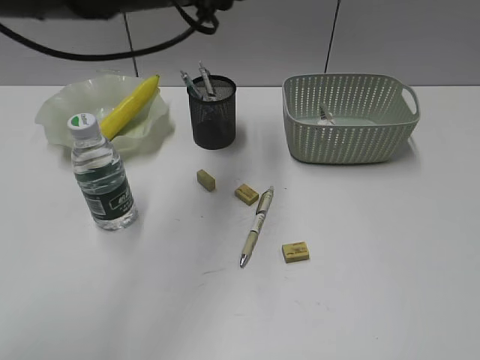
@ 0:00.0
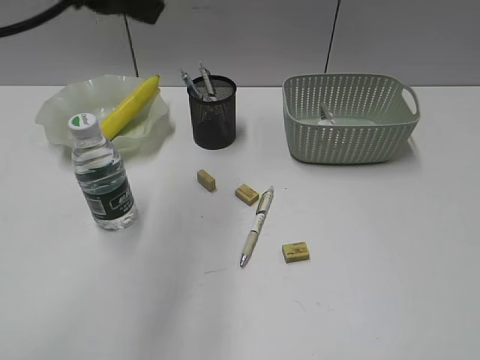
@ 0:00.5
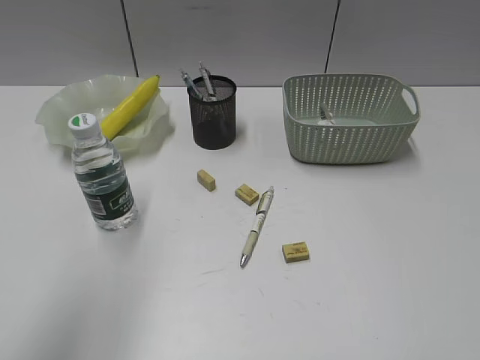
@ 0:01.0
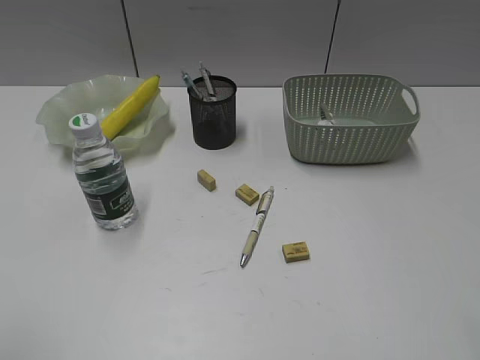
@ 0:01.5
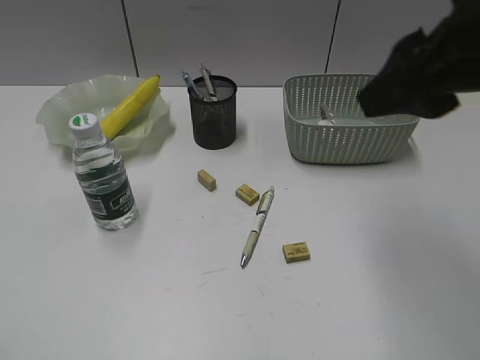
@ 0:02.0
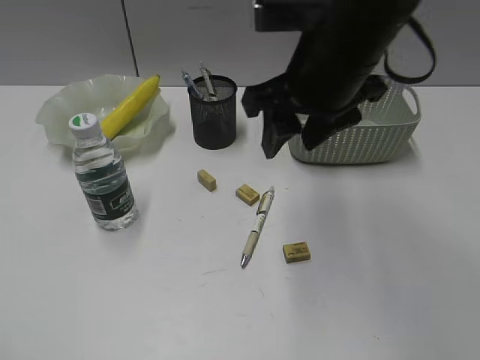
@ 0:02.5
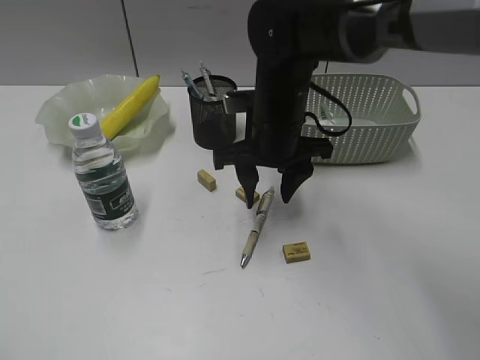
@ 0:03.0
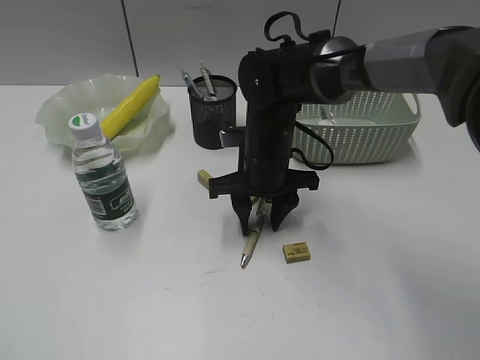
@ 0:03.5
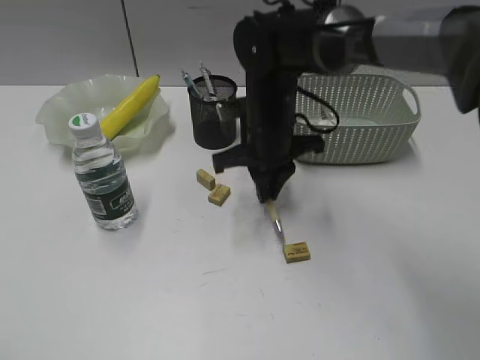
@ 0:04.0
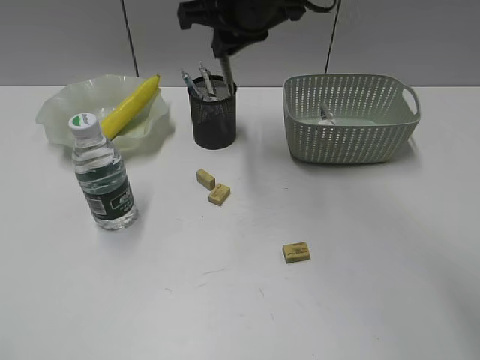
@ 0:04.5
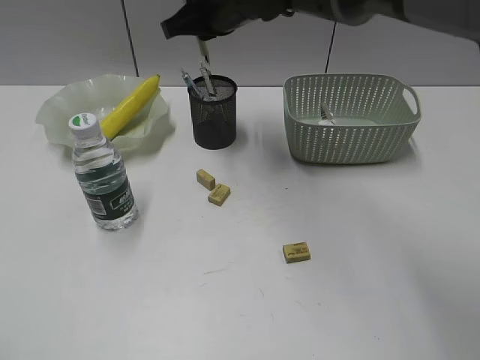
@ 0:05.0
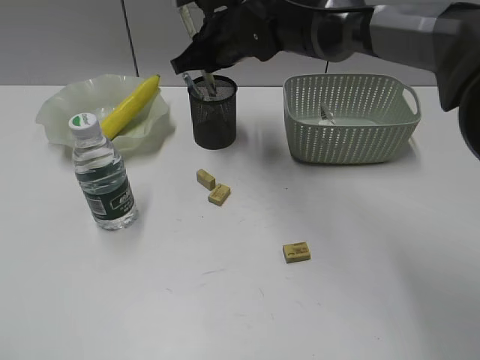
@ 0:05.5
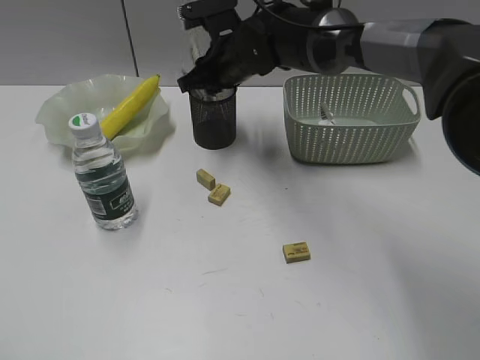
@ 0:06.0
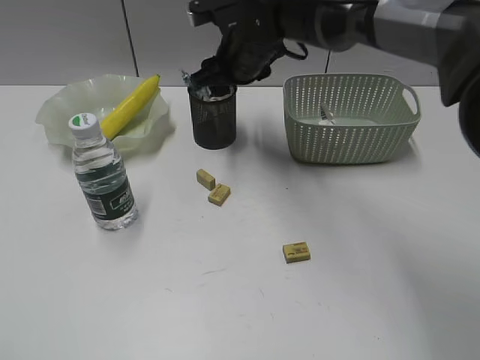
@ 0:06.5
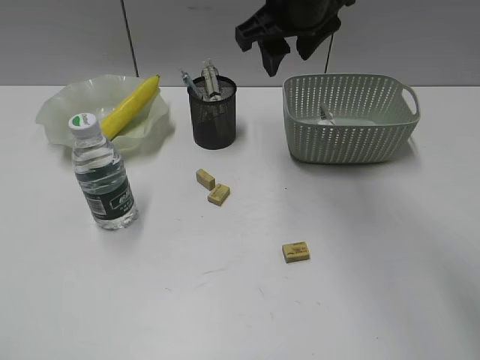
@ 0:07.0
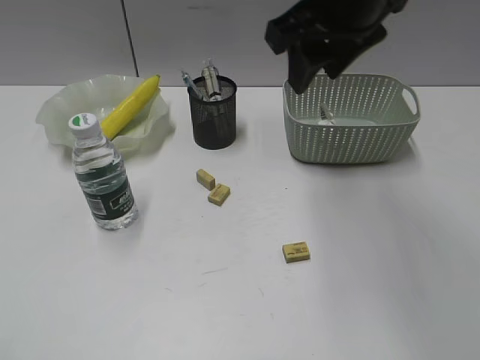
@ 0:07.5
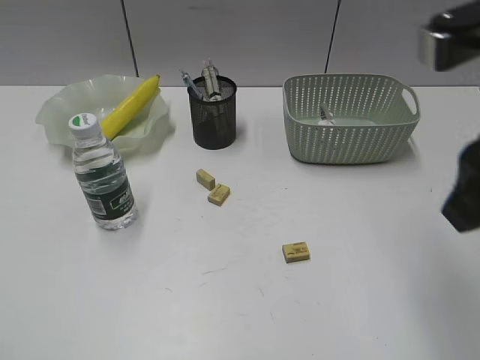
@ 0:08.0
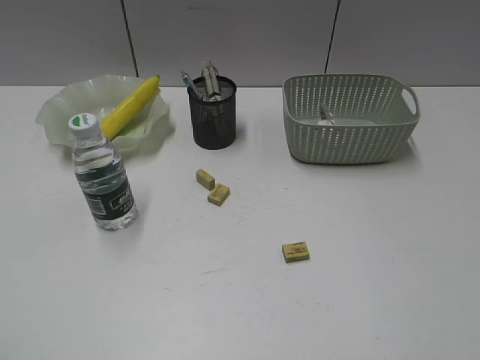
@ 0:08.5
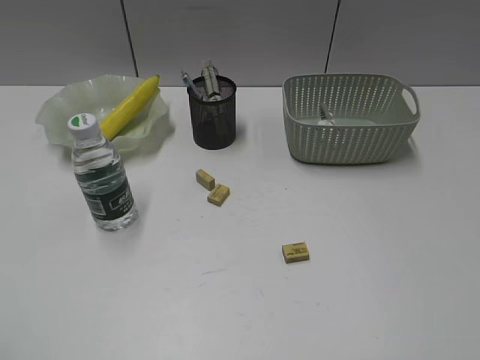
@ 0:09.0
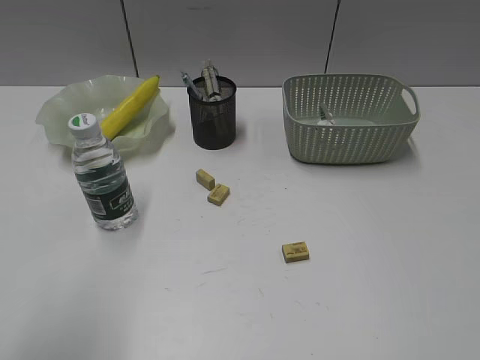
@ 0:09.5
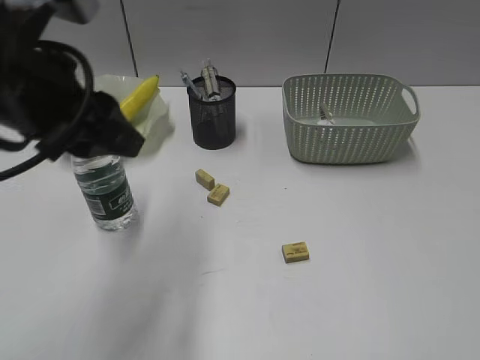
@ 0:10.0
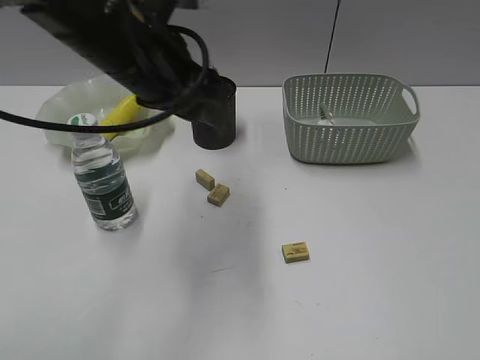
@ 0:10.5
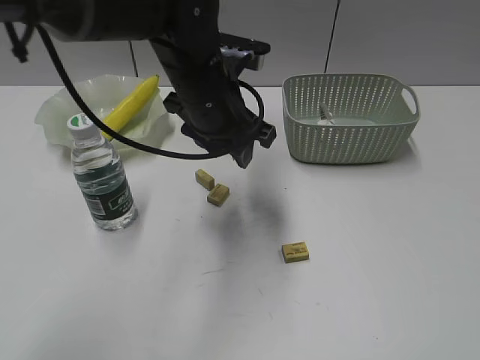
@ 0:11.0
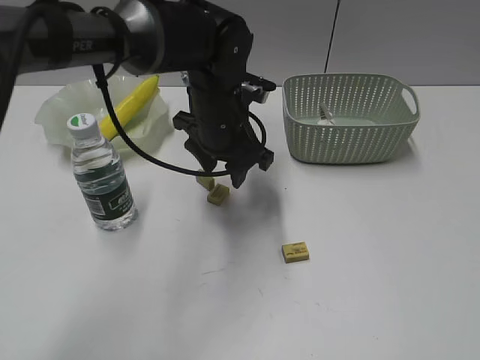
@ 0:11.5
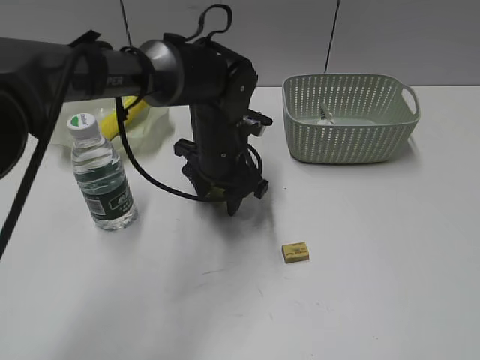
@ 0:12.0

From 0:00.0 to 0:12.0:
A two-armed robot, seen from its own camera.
Step, from 0:00.0 to 0:03.5: Grasp the yellow pen with right gripper.
Step, from 0:04.0 to 0:06.5: Place the yellow pen in pen holder with right gripper.
From 0:00.0 to 0:02.0: The left gripper heads backward and to the left, covering about 50 cm. Meanwhile the right gripper goes approximately 25 cm forward and to the left.
From 0:02.0 to 0:04.0: The right gripper shifts some 30 cm downward, forward and to the left, and closes its fingers.
From 0:04.0 to 0:06.0: The right gripper is displaced forward by approximately 10 cm, and moves some 15 cm upward and comes back.
From 0:06.0 to 0:08.0: The right gripper is displaced backward, to the right and upward by roughly 35 cm, and opens.
From 0:08.0 to 0:10.0: The left gripper is displaced forward and to the right by some 30 cm. The right gripper heads backward and to the right, covering about 20 cm.
From 0:10.0 to 0:12.0: The left gripper travels downward, to the right and forward by approximately 25 cm.

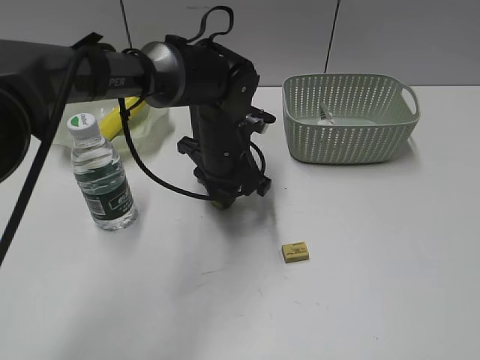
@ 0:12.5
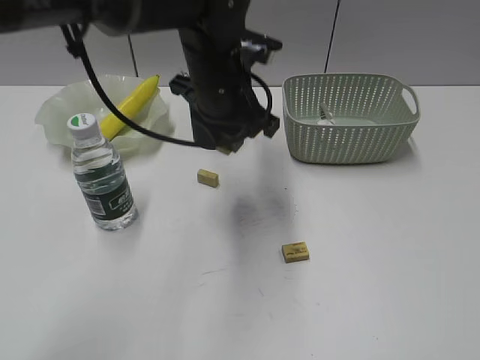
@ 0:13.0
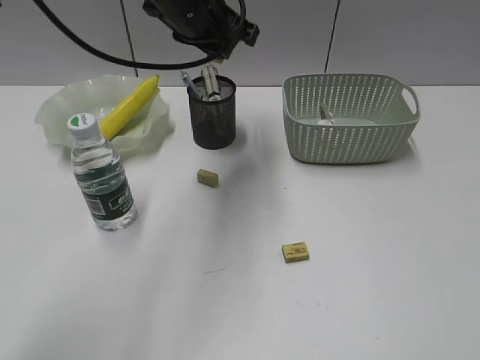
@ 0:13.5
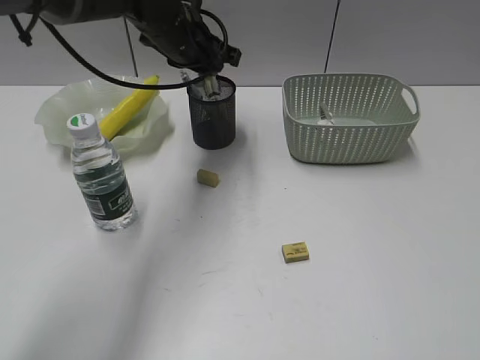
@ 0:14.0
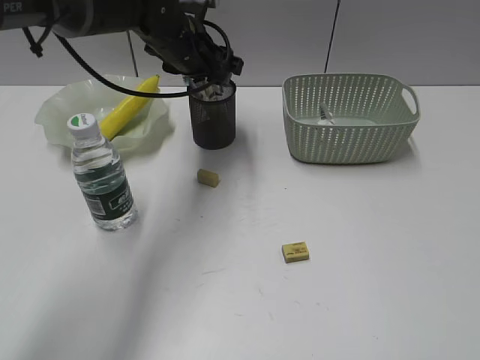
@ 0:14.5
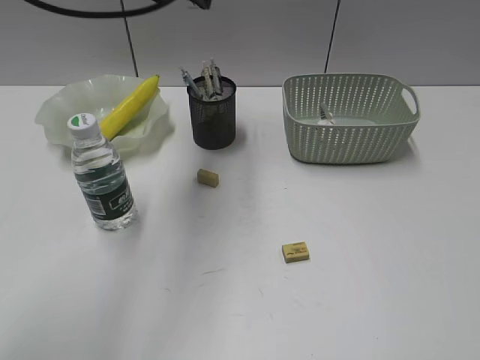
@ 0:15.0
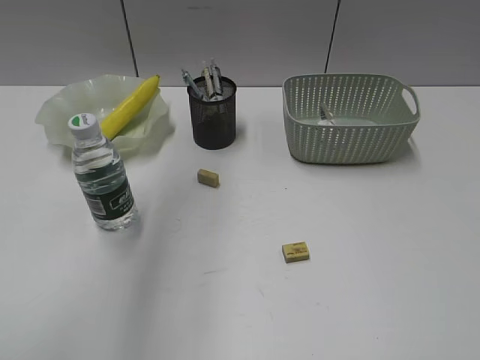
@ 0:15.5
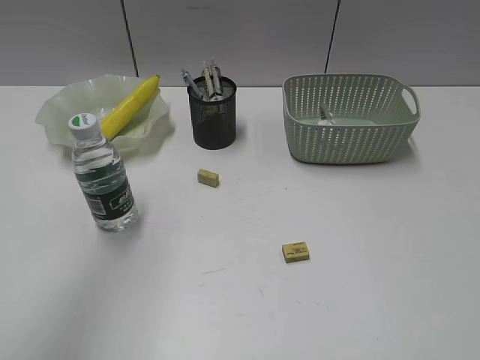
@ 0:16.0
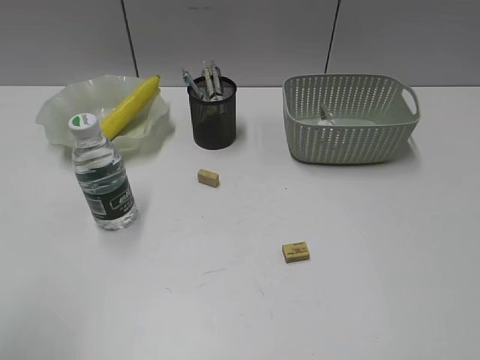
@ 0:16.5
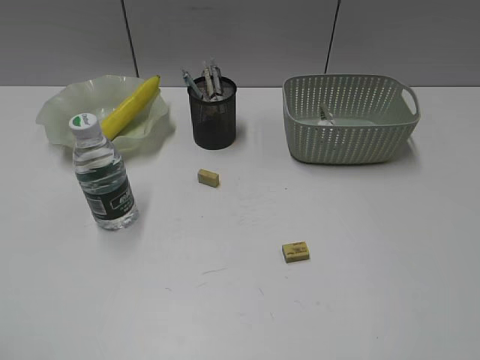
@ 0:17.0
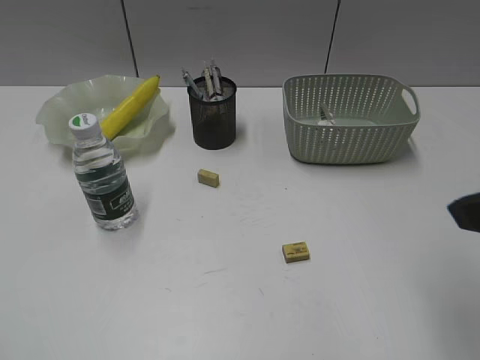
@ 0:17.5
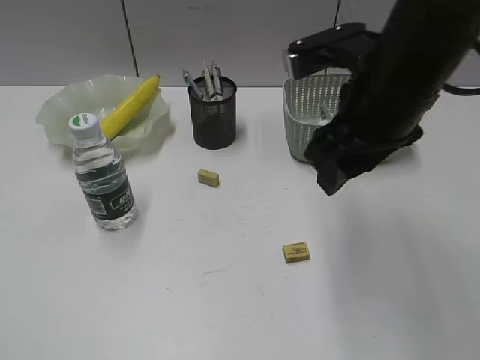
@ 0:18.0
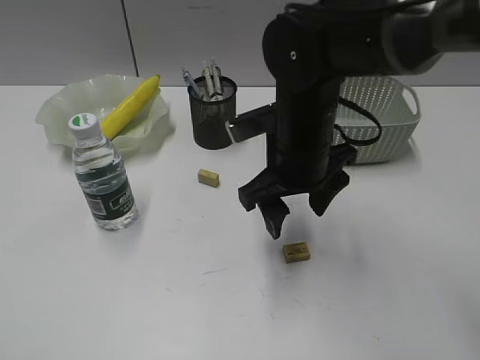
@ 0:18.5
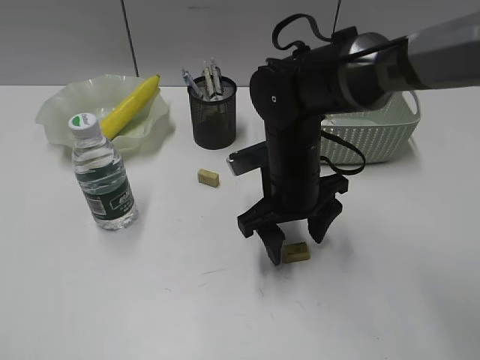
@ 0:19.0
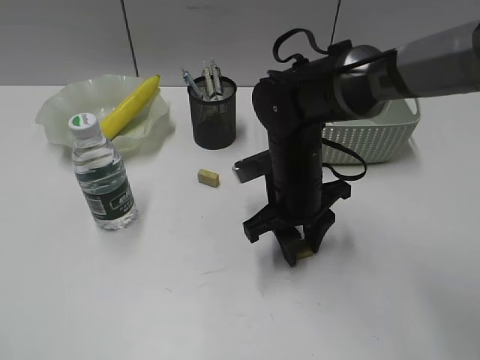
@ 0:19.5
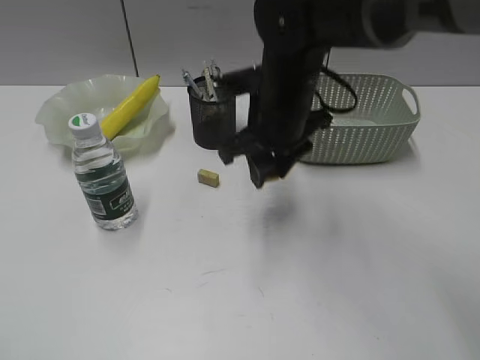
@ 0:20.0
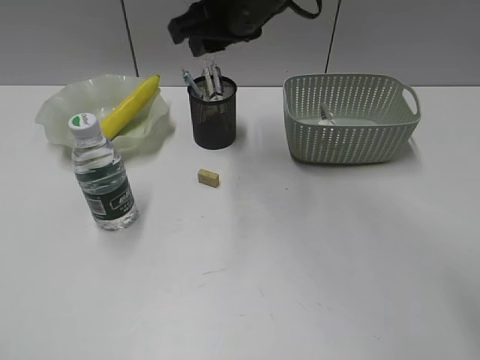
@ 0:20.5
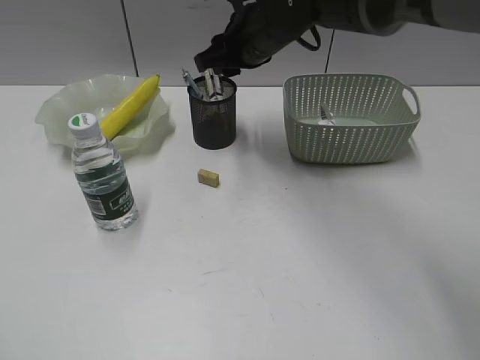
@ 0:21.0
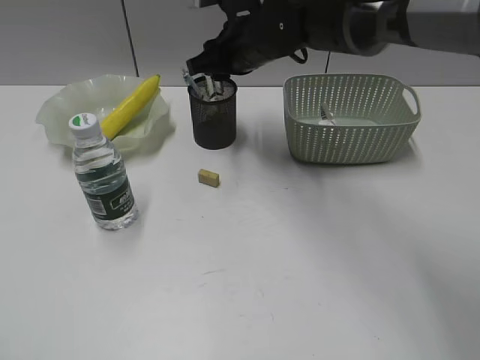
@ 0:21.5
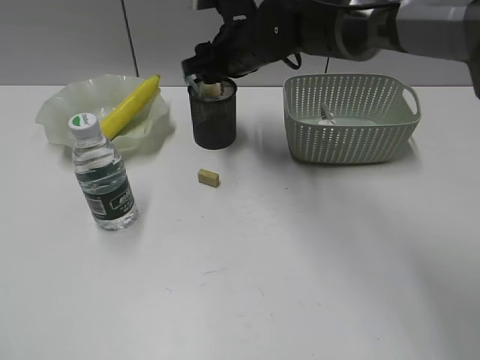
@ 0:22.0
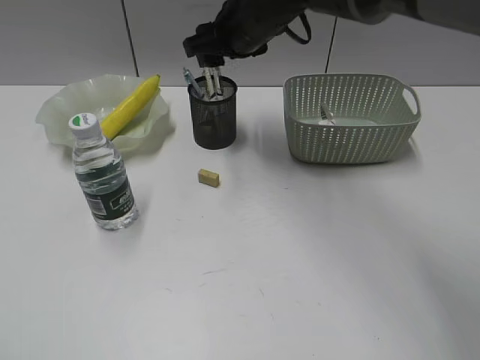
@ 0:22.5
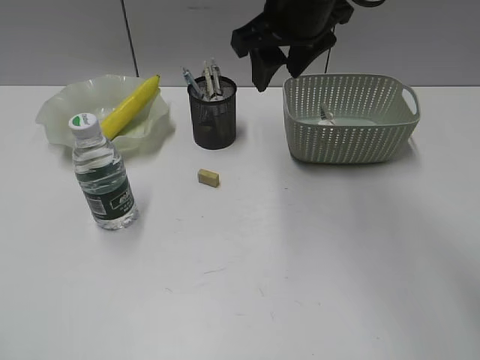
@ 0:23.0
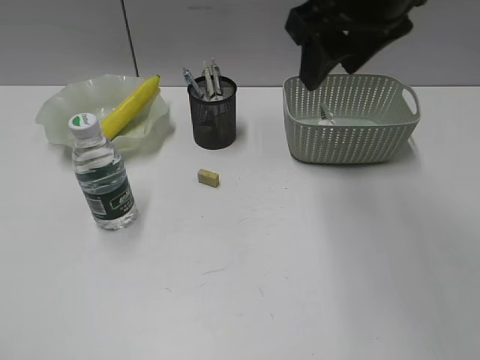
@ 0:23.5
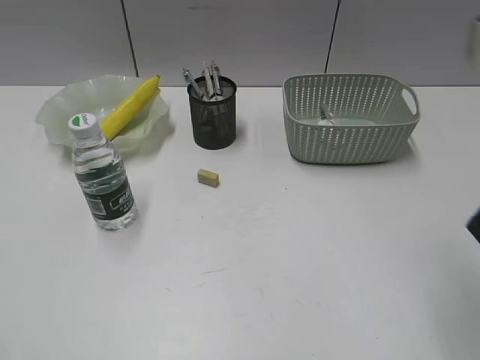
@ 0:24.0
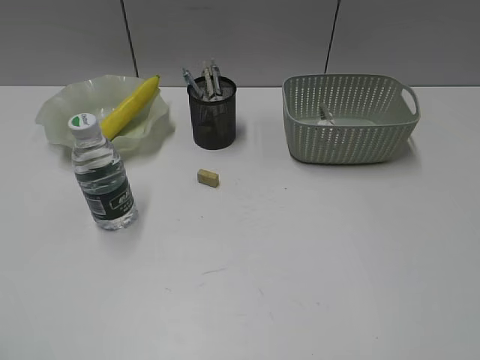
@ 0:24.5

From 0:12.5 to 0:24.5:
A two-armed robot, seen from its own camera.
Step, from 0:13.0 to 0:14.5: Place the eraser in pen holder with left gripper.
Step, from 0:15.0 to 0:19.5: Grasp the eraser with right gripper.
Step, from 0:20.0 to 0:22.0: Place the eraser in pen holder with right gripper.
From 0:12.5 to 0:14.5: The left gripper goes roughly 15 cm upward, forward and to the left, and opens its fingers.
From 0:14.5 to 0:16.5: The left gripper shifts approximately 40 cm backward and to the left.
From 0:16.5 to 0:18.5: The left gripper heads backward and downward, covering about 10 cm. Meanwhile the right gripper heads forward and to the left, covering approximately 40 cm, and opens.
From 0:18.5 to 0:20.5: The right gripper moves upward, forward and to the left, roughly 15 cm, and closes.
From 0:20.5 to 0:22.5: The right gripper travels forward by roughly 5 cm.
From 0:22.5 to 0:24.5: The right gripper is displaced backward and to the right by approximately 50 cm.

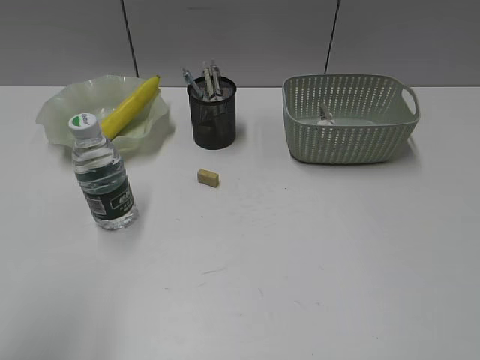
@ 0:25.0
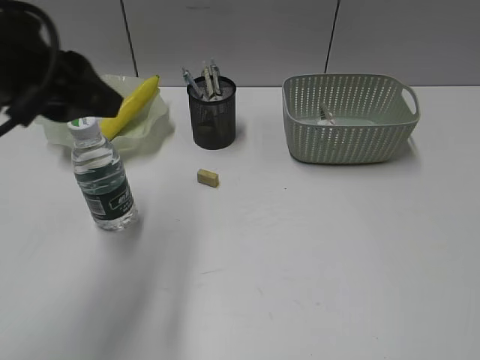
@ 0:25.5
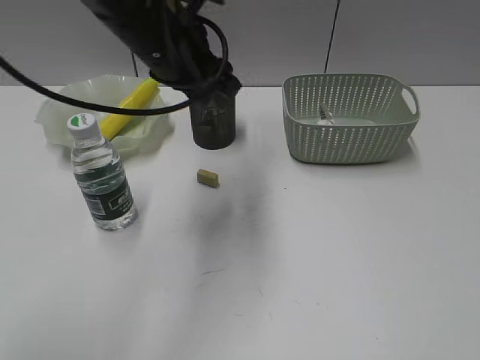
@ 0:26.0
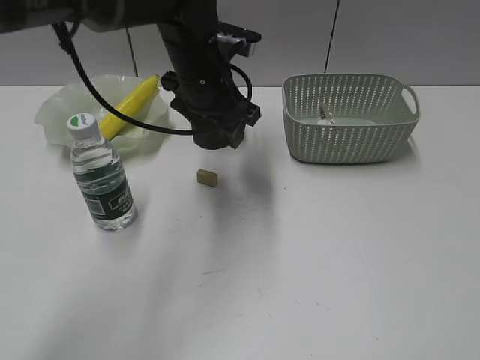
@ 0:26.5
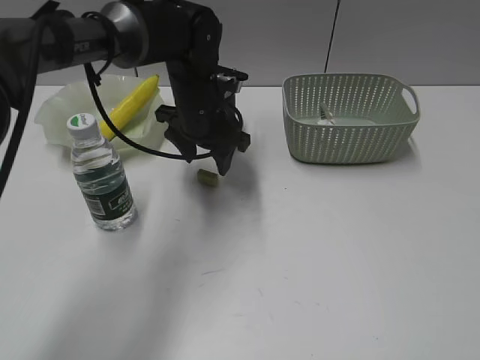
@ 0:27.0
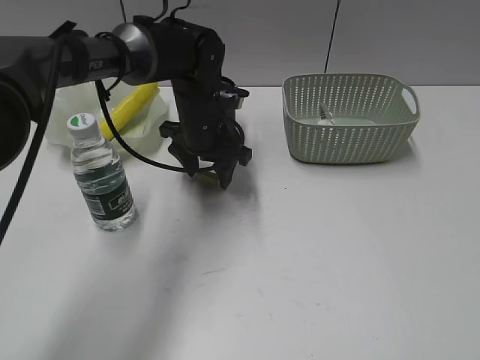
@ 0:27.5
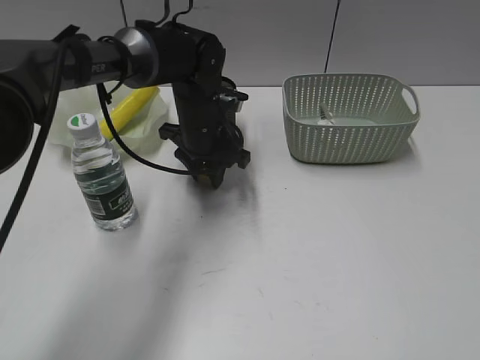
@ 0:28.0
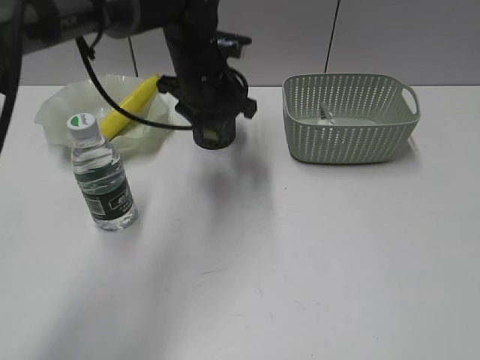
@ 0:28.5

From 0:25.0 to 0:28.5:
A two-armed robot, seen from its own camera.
Step, from 0:25.0 to 0:28.0: Grasp the eraser with left gripper.
From 0:25.0 to 0:27.0: The left gripper moves forward, to the right and downward, some 50 cm.
From 0:27.0 to 0:28.5: The left gripper closes its fingers.
